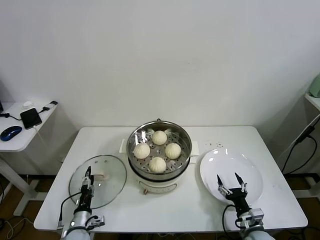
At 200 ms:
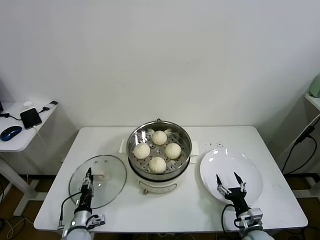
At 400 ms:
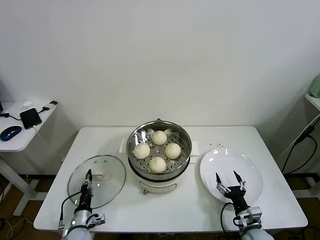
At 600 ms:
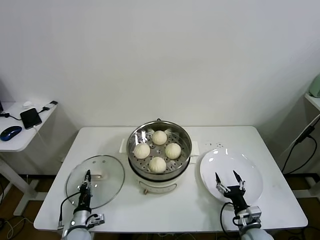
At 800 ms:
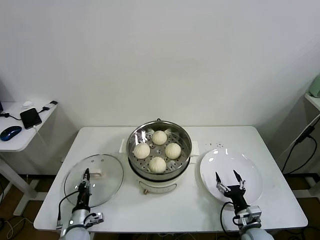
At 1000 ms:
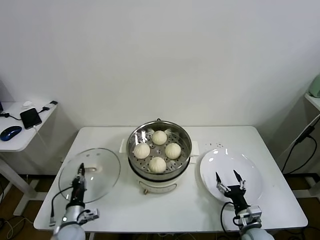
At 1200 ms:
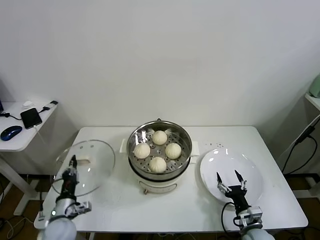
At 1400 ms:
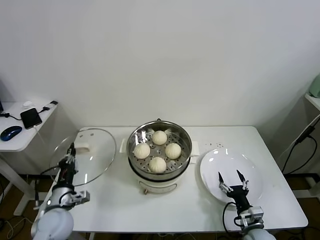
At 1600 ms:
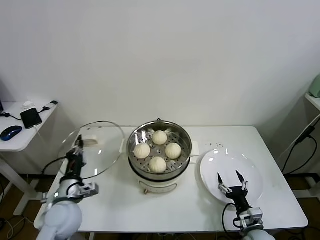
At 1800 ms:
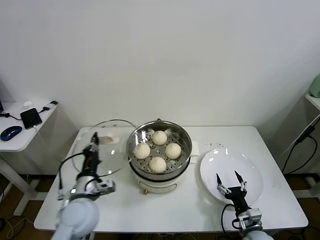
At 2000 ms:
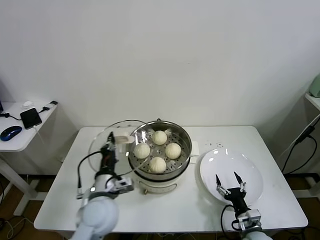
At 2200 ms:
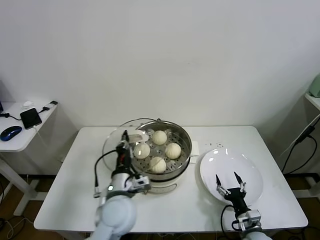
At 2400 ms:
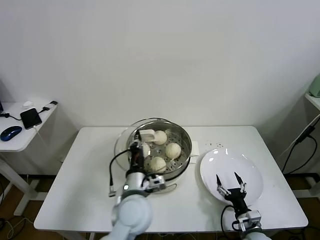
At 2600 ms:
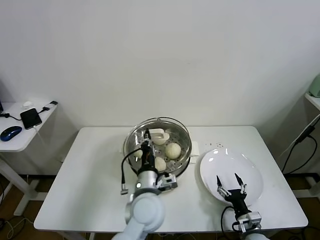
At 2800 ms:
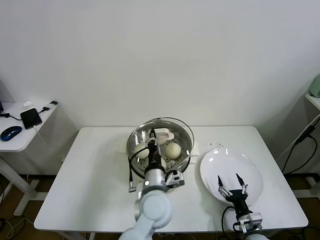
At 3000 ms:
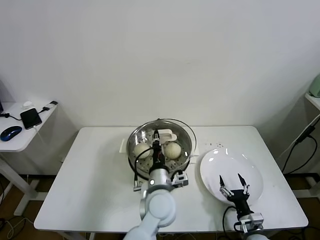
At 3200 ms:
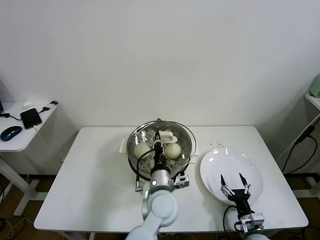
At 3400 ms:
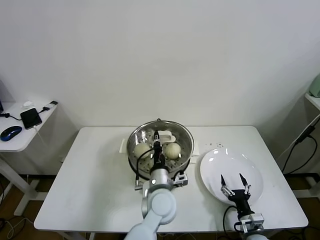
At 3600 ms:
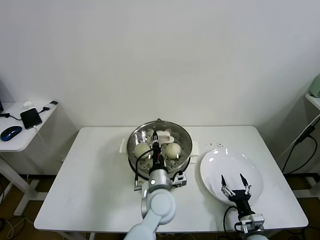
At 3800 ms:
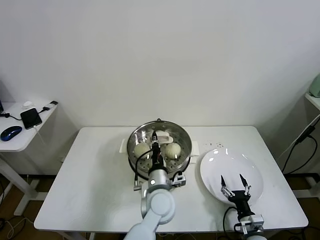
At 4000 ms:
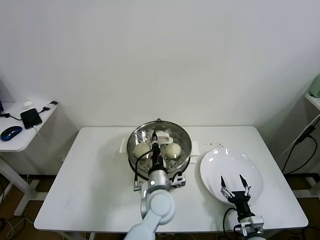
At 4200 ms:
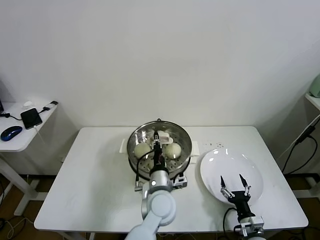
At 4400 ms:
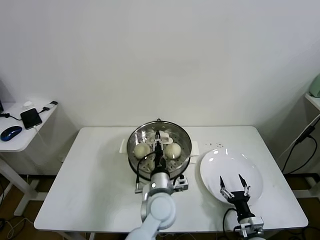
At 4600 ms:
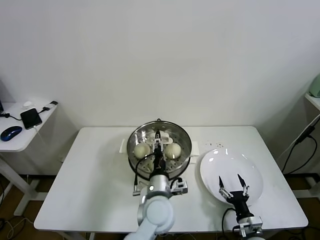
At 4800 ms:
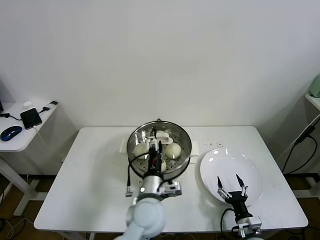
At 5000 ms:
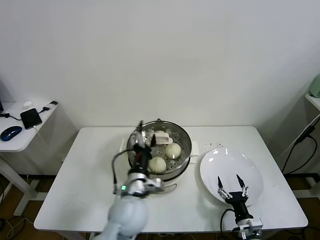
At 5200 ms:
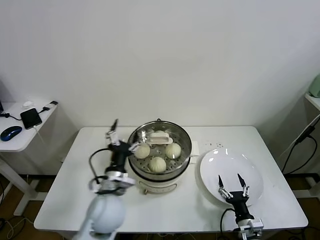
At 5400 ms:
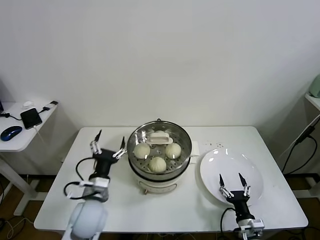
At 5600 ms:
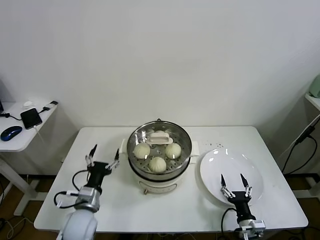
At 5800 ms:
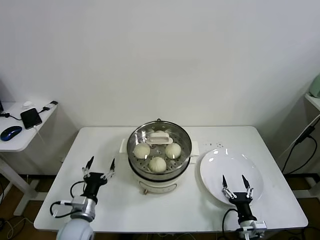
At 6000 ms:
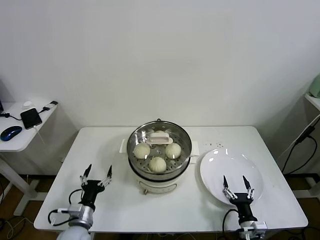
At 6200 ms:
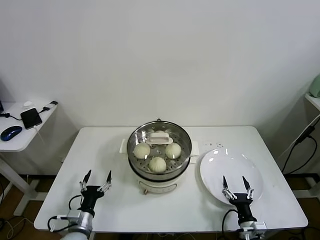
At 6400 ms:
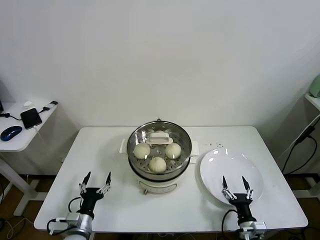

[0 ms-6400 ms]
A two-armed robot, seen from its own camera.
Task of the whole recording: take steamed baozi put them in steamer.
Step, 600 ms to 4400 ms: Place the pot lid on the steamer with left gripper.
0 ms to 1600 ms: The left gripper shifts roughly 20 cm upward, and closes.
1600 ms to 3200 ms: The left gripper shifts approximately 30 cm to the right.
3200 ms to 4800 ms: The left gripper opens its fingers.
4800 ms to 6400 ms: The left gripper moves to the left and downward, about 30 cm.

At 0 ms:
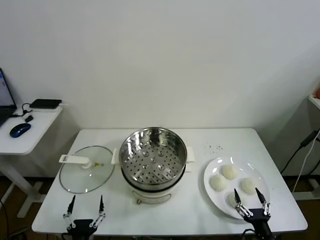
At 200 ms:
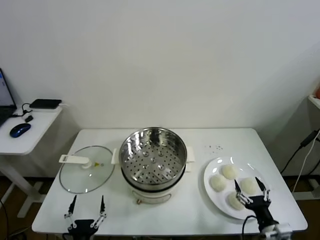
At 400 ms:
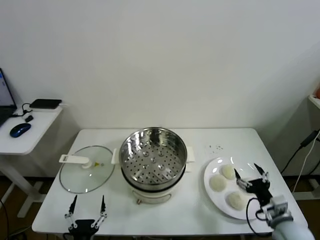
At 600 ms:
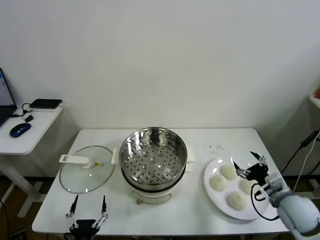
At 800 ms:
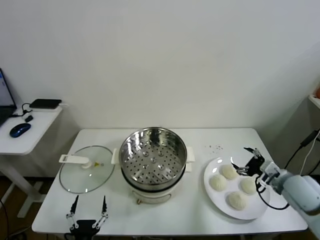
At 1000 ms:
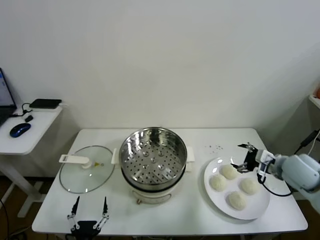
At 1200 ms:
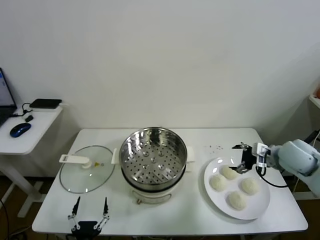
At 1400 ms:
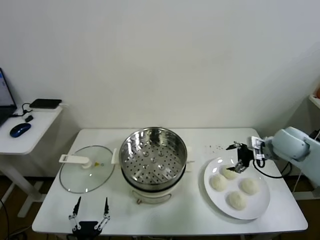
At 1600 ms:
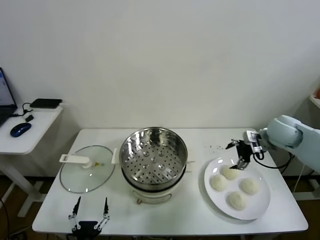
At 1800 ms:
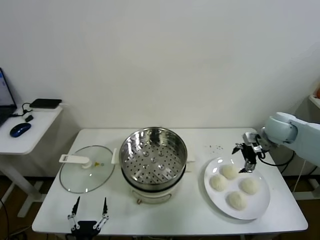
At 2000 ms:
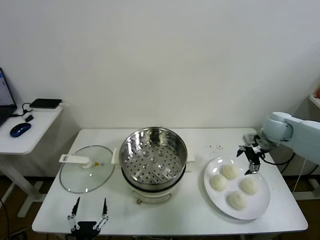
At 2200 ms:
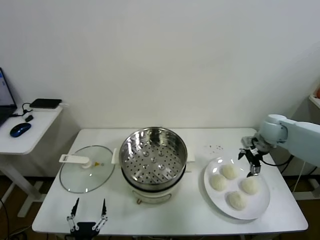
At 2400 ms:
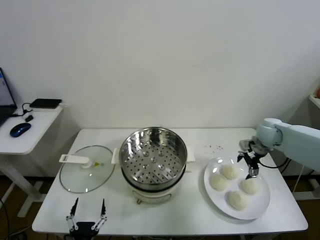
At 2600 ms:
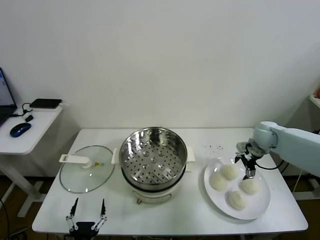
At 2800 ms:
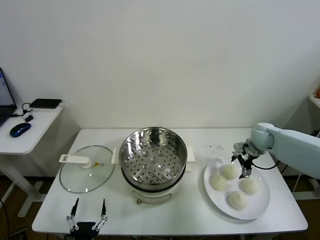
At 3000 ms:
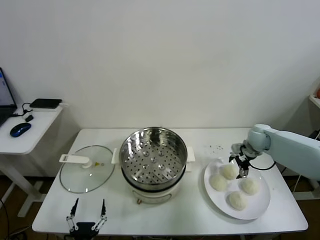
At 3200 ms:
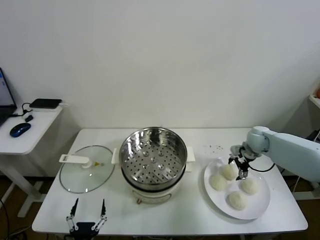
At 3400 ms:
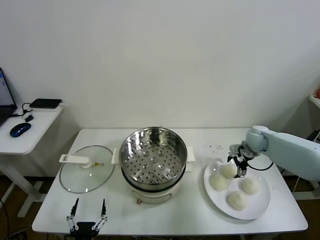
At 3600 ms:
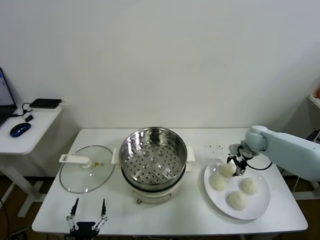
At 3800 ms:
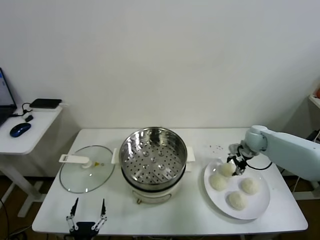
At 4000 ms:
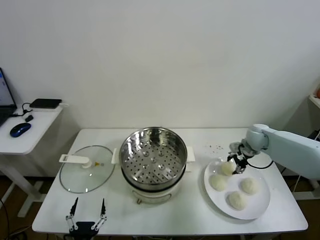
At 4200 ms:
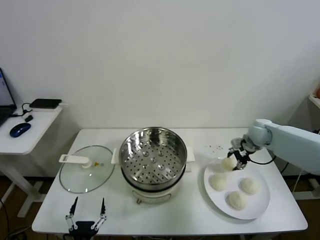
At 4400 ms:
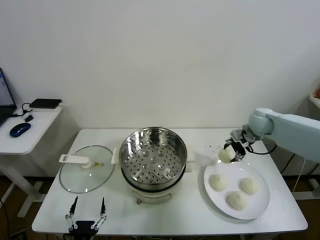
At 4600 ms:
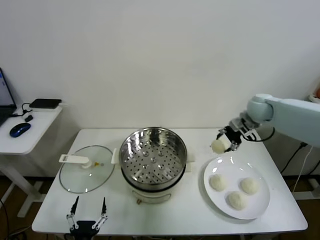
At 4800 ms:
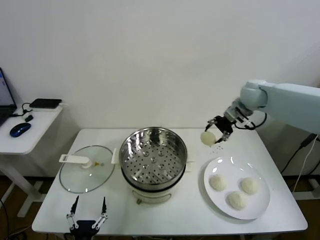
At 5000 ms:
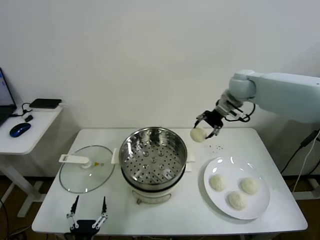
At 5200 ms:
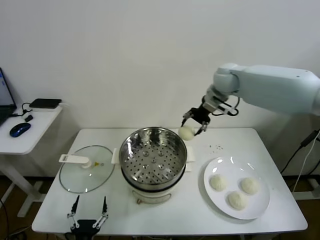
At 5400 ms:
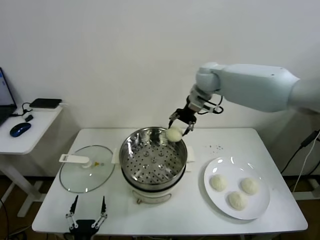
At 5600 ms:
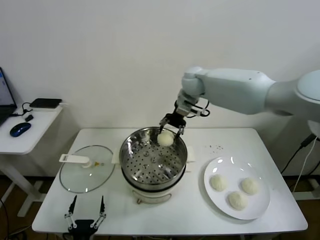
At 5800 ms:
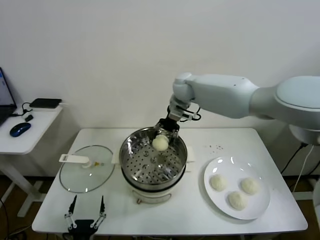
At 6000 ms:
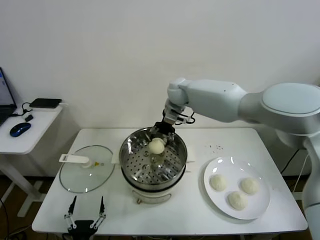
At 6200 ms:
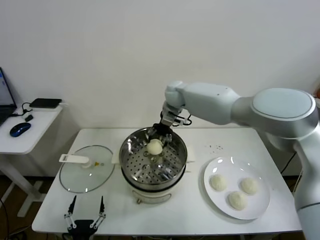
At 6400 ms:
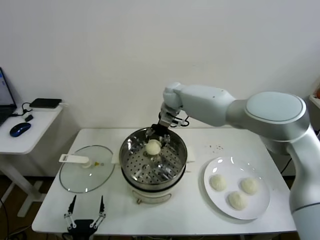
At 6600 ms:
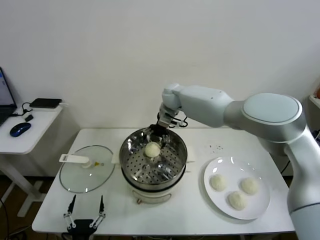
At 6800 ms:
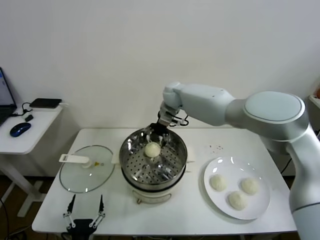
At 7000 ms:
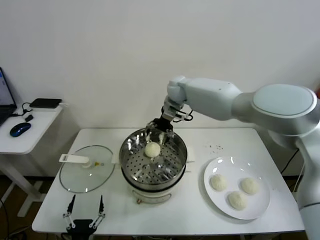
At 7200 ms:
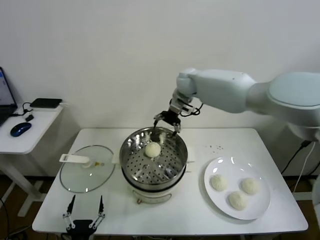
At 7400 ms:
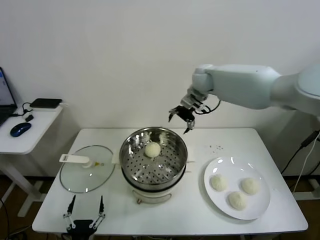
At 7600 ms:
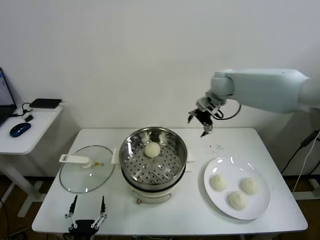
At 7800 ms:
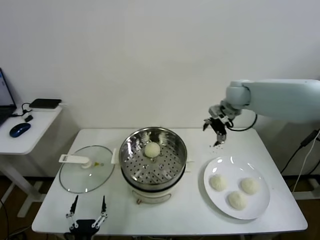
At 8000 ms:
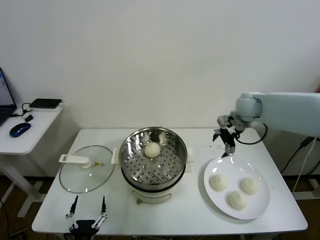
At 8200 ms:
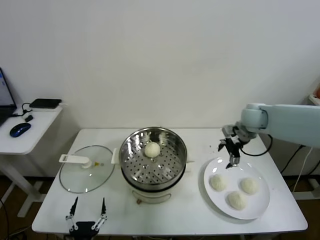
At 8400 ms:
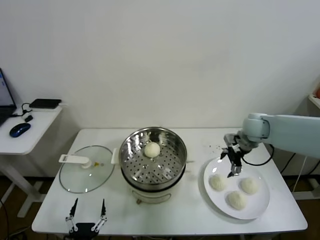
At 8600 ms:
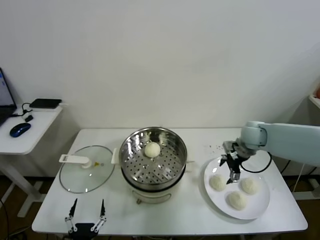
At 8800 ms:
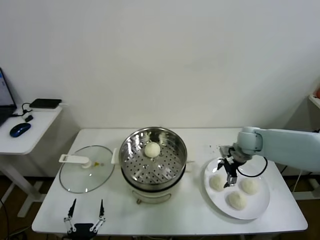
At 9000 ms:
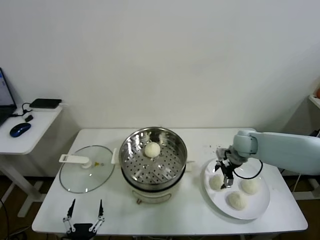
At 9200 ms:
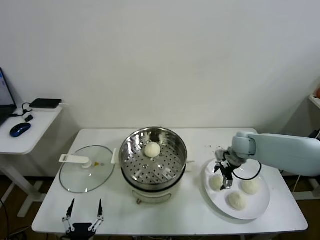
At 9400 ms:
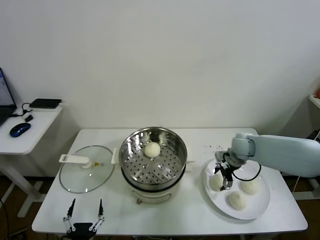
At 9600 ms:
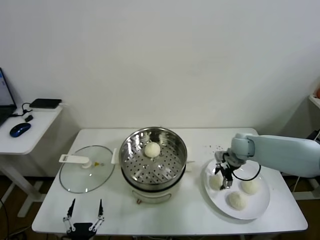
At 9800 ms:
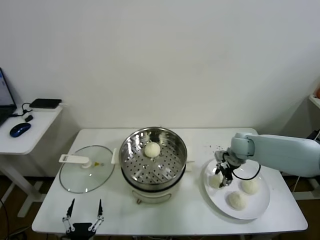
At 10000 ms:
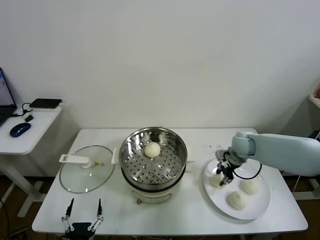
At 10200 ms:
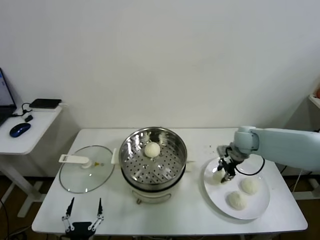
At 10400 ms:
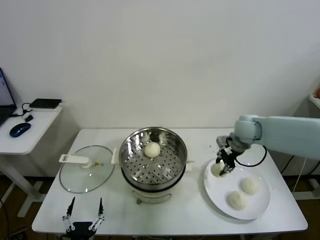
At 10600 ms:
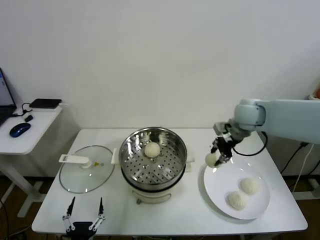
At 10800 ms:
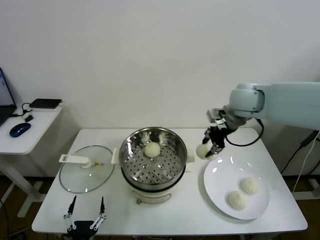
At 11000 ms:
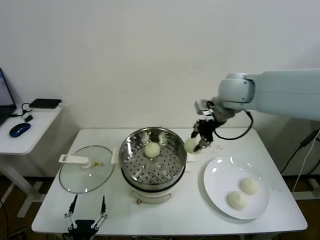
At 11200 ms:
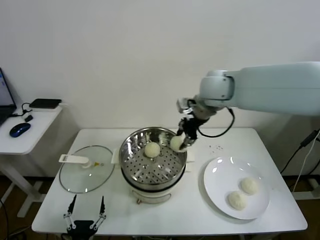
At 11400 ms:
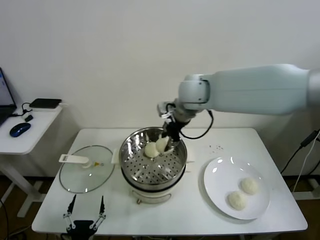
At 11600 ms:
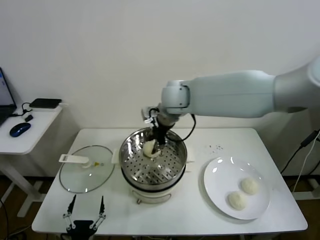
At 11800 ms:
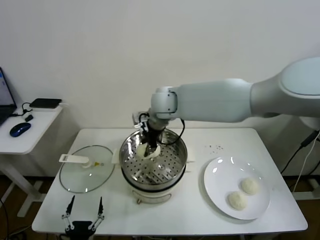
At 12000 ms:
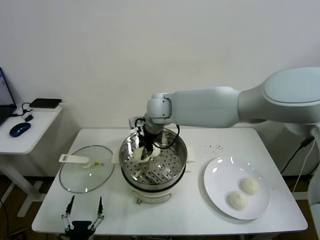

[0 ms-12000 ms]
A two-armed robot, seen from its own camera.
Task of the whole recording: take steamed baozi put them in steamer.
Step, 0 ms to 3800 ms: Grasp the baozi in the plate with right gripper.
Step, 4000 ms to 6800 ms: Place the baozi on the steamer with right gripper.
Step, 7000 ms to 9600 ms: Grasp the baozi in the plate with right gripper.
1600 ms to 3000 ms: The right gripper heads downward and forward, covering approximately 10 cm.
3000 ms to 4400 ms: The right gripper travels upward by about 10 cm, and closes its fingers.
4400 ms to 6000 ms: The right gripper travels to the left by about 30 cm.
6000 ms to 7600 ms: The right gripper shifts roughly 20 cm to the right, and opens up.
7600 ms to 9000 ms: The right gripper goes some 20 cm downward and backward.
9000 ms to 10400 ms: The right gripper is displaced upward by roughly 10 cm, and closes.
10400 ms to 12000 ms: The right gripper travels to the left by about 30 cm.

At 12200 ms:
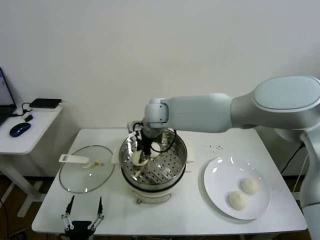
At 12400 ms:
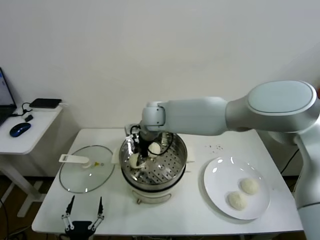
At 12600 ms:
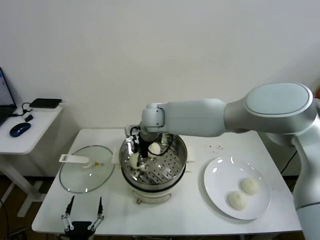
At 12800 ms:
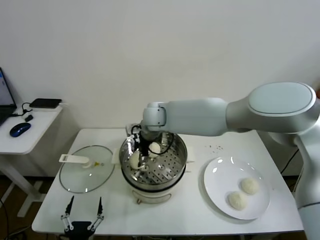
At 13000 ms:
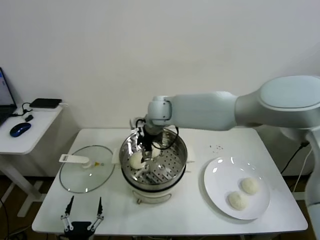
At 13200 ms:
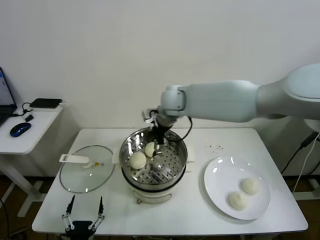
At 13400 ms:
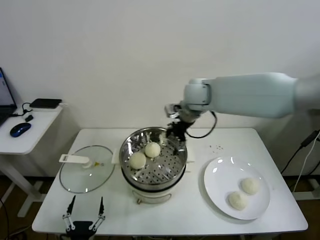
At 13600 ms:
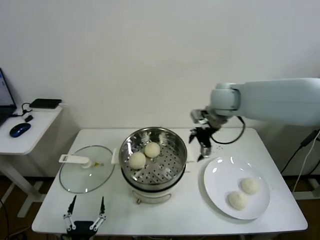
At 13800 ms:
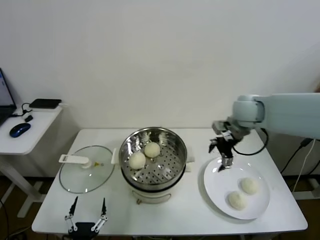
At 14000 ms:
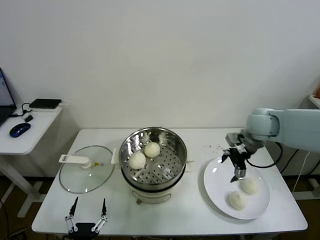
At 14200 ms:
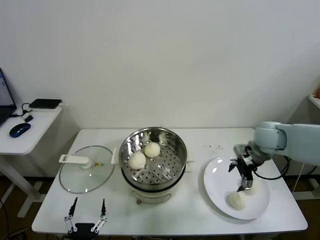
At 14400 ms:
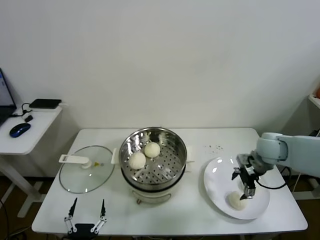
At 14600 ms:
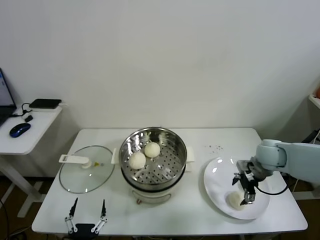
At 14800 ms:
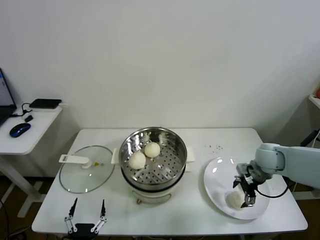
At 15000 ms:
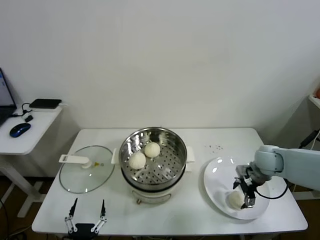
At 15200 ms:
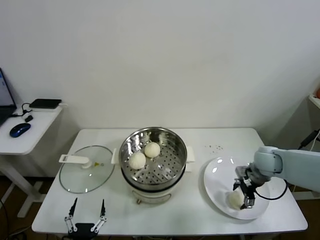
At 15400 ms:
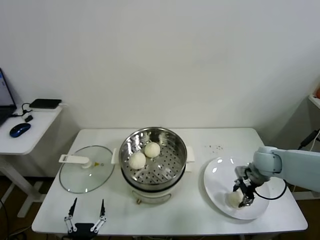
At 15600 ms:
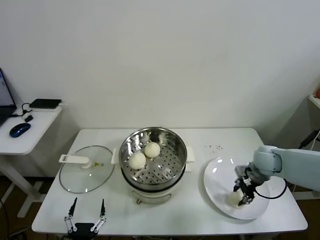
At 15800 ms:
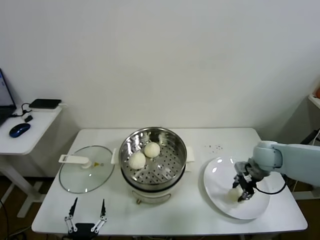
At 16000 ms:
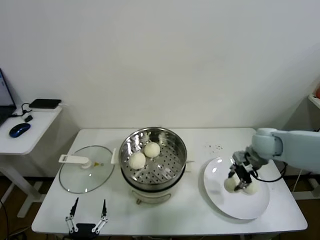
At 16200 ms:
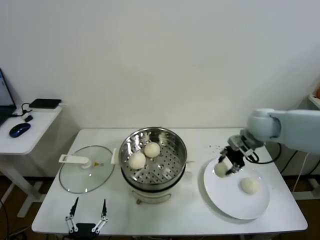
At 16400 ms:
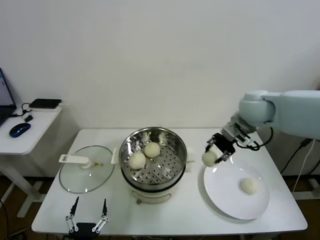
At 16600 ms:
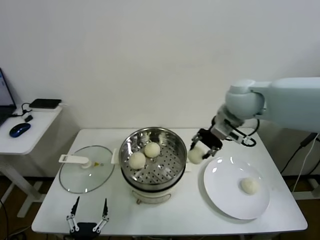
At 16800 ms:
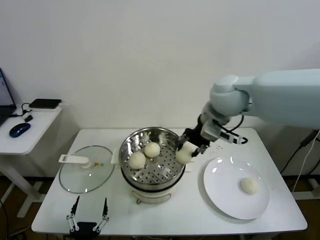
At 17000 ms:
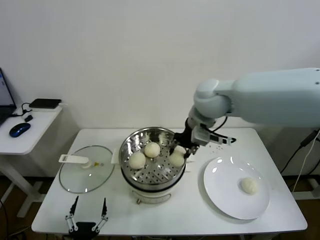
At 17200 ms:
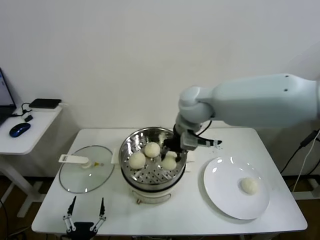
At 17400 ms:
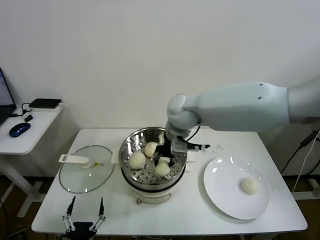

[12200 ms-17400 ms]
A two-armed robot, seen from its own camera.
Task of the whole recording: take steamed baozi put them in steamer.
Step, 13200 ms to 15600 ms: Grasp the baozi in the plate with right gripper.
12200 ms to 14000 ms: The right gripper goes roughly 35 cm to the right, and opens.
14000 ms to 15600 ms: The right gripper shifts some 15 cm downward, and closes its fingers.
15600 ms to 17400 ms: The right gripper travels to the left and upward by roughly 35 cm.
